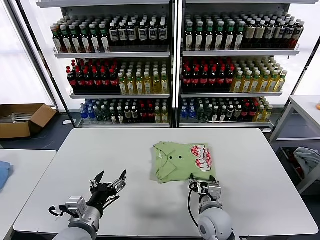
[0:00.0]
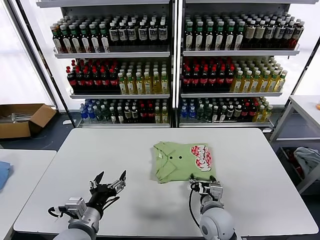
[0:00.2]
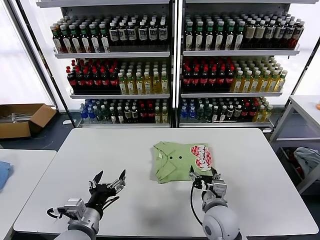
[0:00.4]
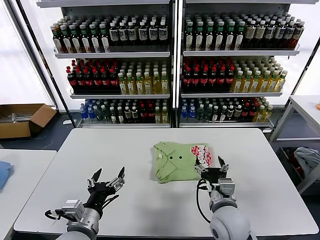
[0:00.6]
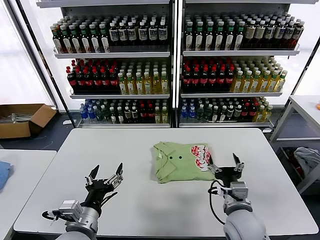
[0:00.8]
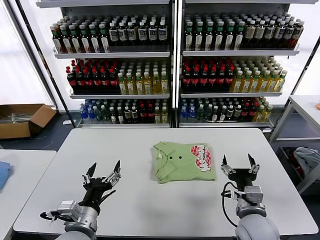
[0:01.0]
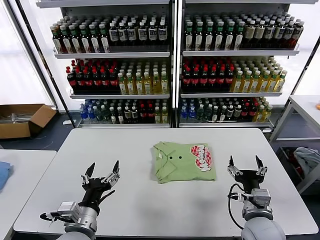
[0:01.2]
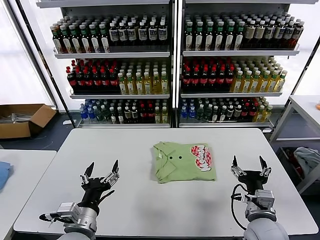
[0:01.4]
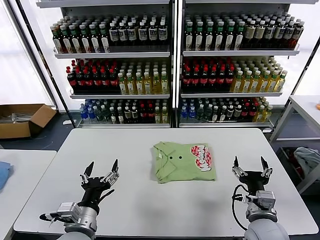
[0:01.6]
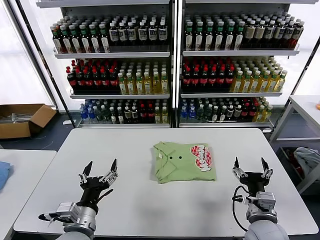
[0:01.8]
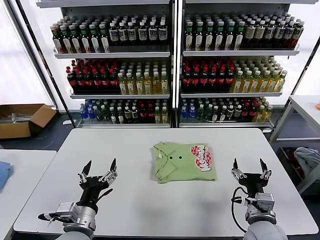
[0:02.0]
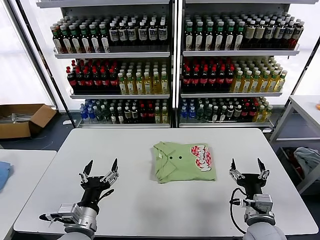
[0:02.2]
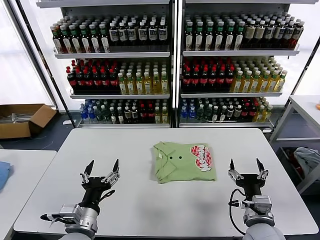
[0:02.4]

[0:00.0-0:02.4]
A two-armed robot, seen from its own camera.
Task of the whole recording: fold and organize the clothes.
0:00.0 to 0:01.2: The right gripper shifts roughly 15 cm to the right, upward and backward.
0:01.2 to 0:02.4: The grippers move only a little.
